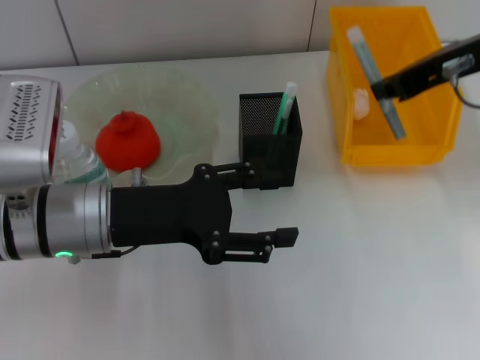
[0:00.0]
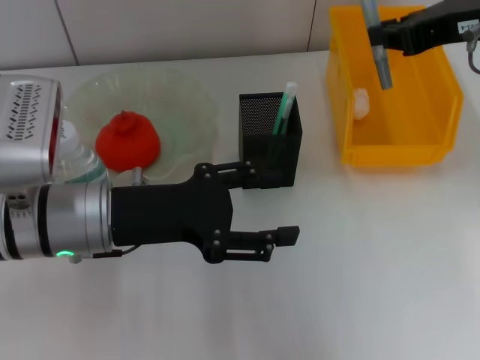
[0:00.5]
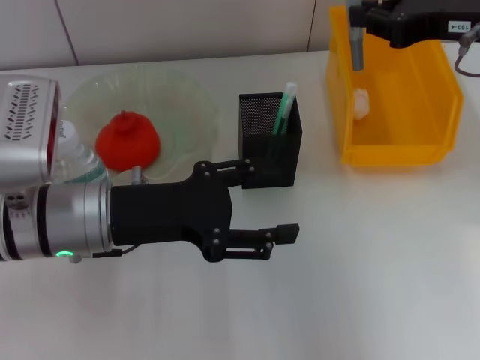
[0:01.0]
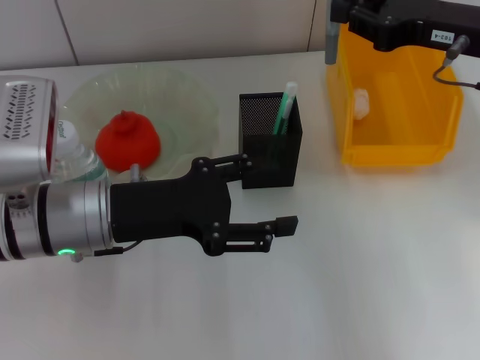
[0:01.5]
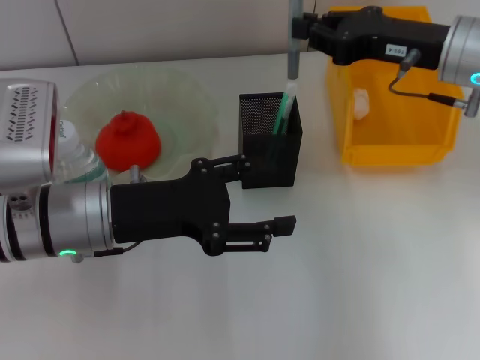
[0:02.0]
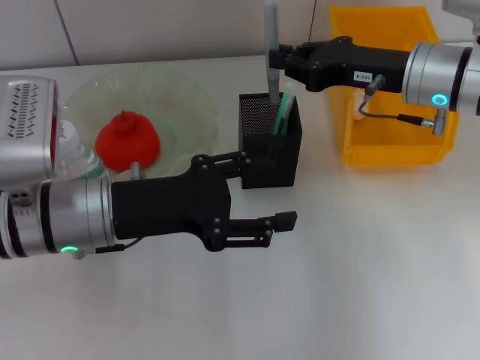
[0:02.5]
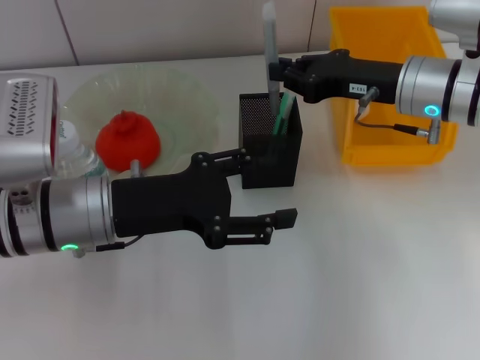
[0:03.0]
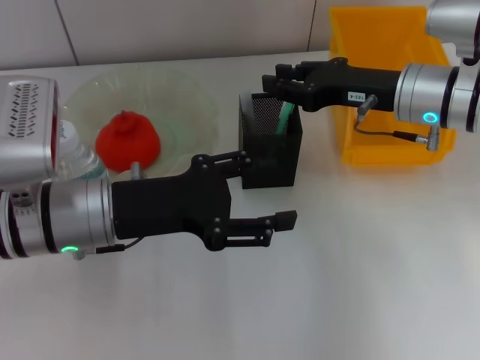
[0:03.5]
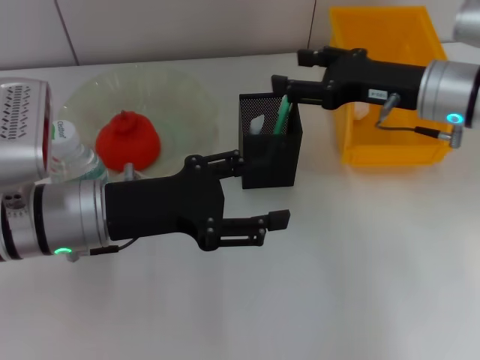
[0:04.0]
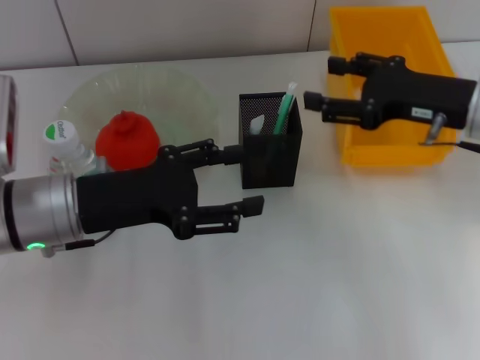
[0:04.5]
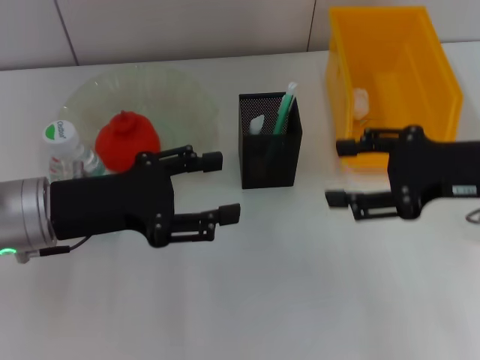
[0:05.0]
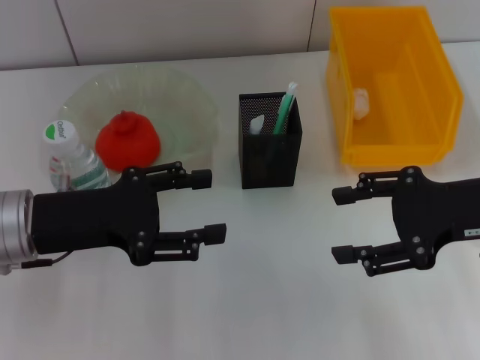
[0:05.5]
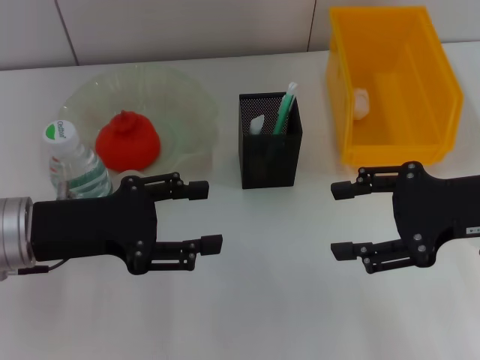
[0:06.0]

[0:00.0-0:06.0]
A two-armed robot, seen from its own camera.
Step, 0:00.0 to 0:03.5: Place the gray glue into the pen holder with the right hand.
0:00.0 to 0:02.0: The right gripper moves downward, some 10 cm.
0:02.0 to 0:04.0: The right gripper opens its fingers.
0:04.0 to 0:06.0: The right gripper shifts about 10 cm backward. Meanwhile the left gripper heads to the left, covering some 5 cm.

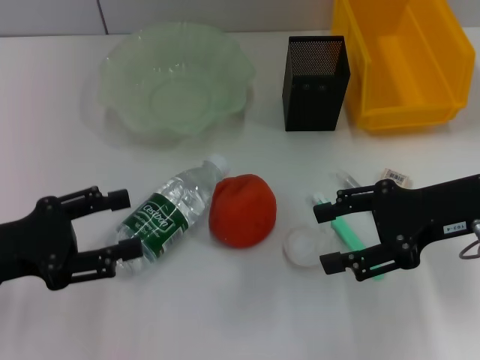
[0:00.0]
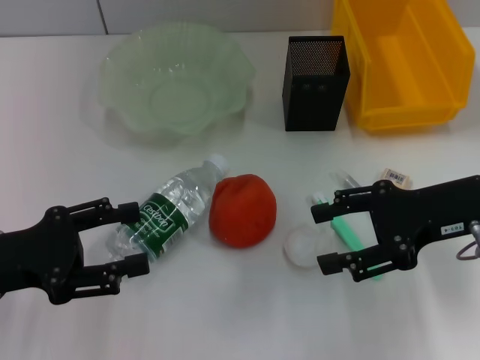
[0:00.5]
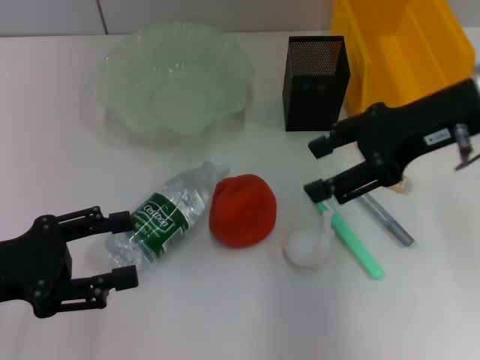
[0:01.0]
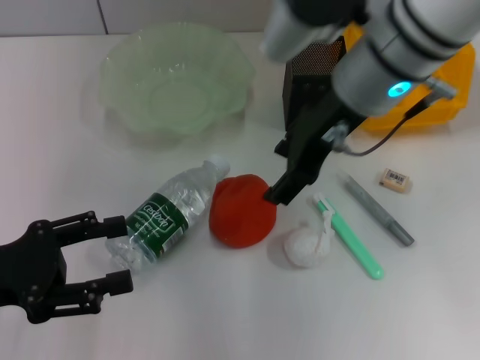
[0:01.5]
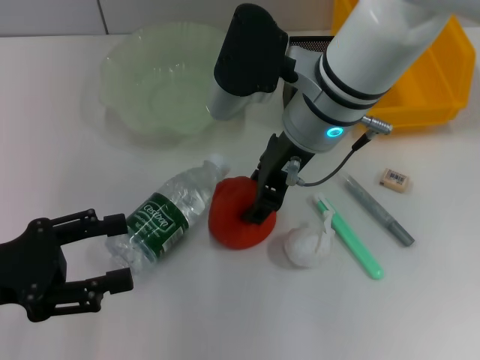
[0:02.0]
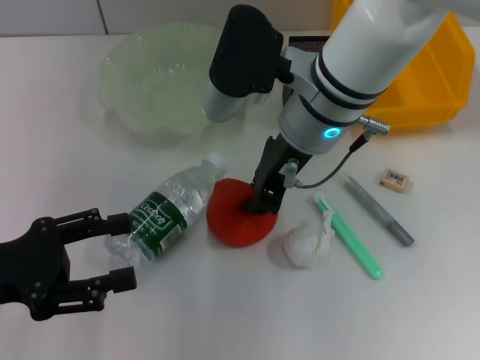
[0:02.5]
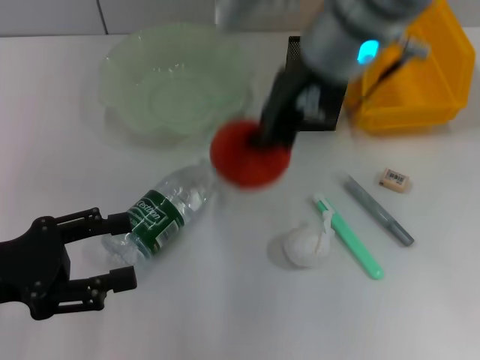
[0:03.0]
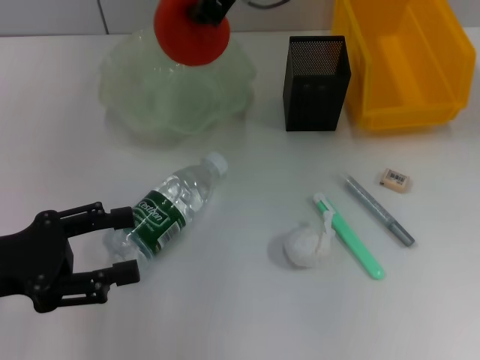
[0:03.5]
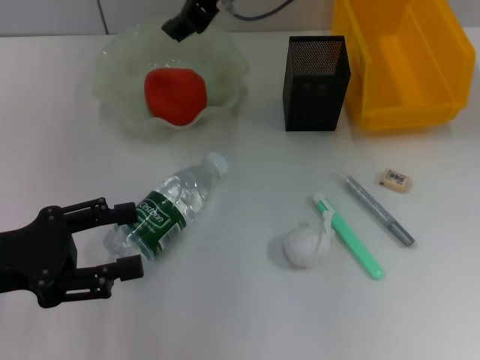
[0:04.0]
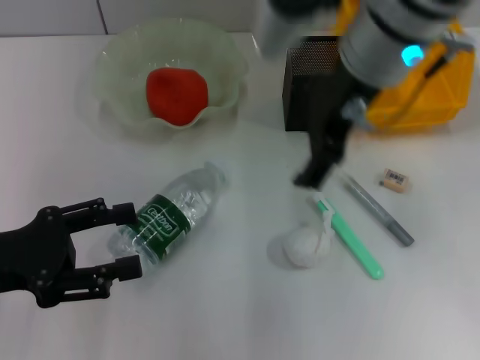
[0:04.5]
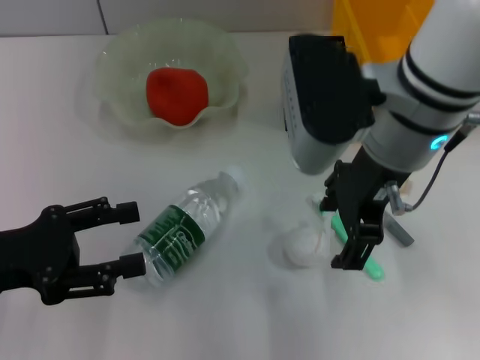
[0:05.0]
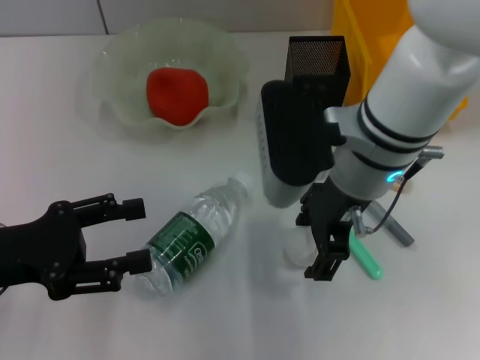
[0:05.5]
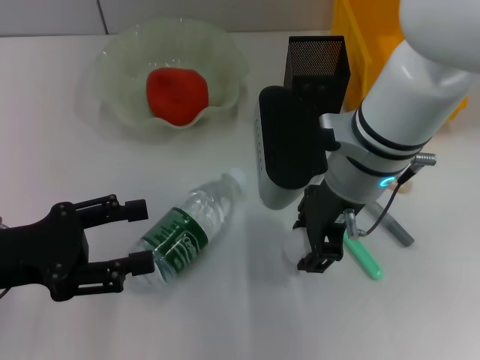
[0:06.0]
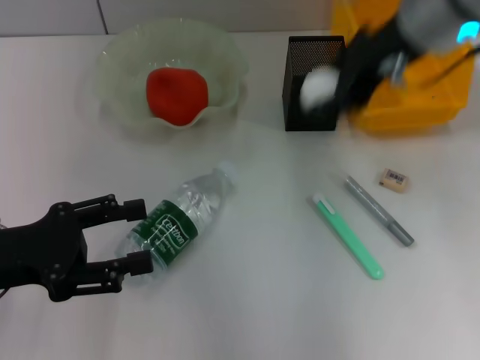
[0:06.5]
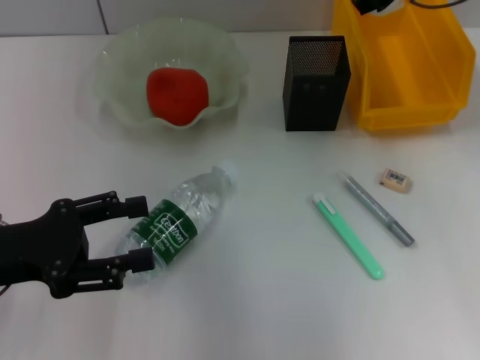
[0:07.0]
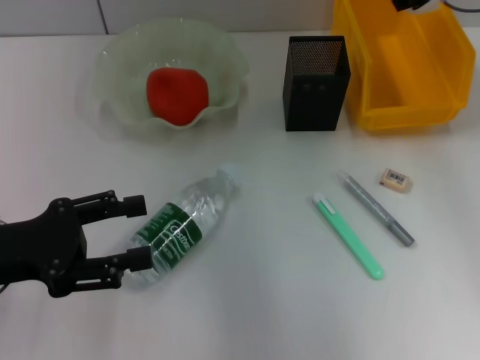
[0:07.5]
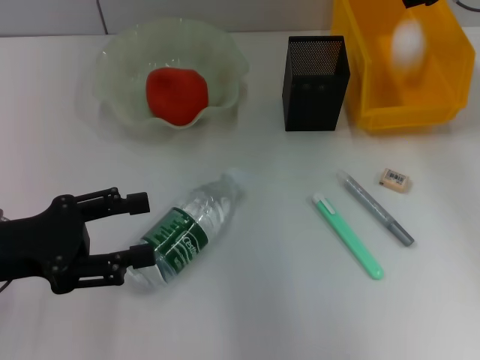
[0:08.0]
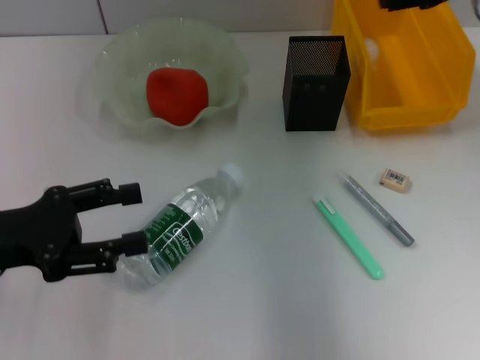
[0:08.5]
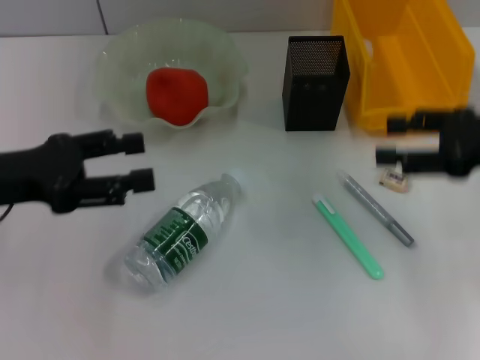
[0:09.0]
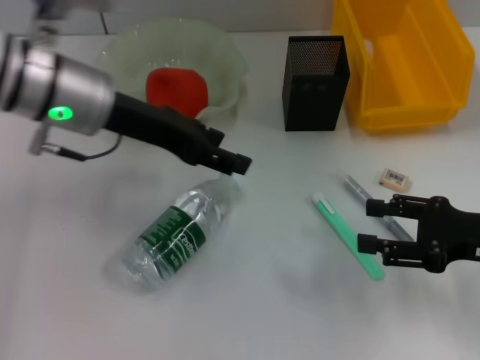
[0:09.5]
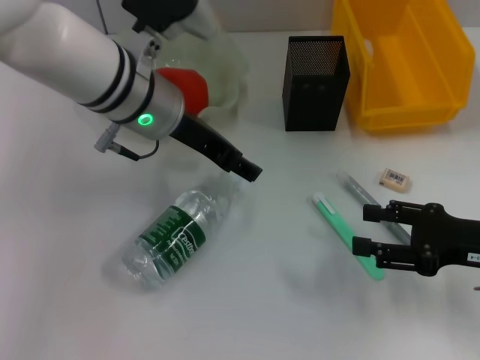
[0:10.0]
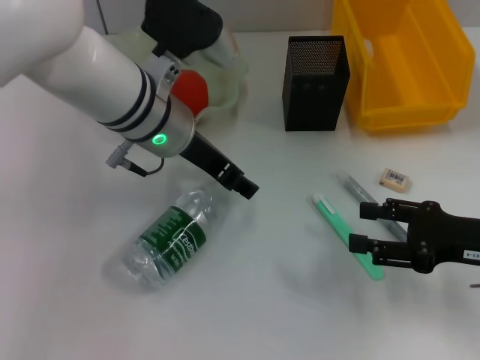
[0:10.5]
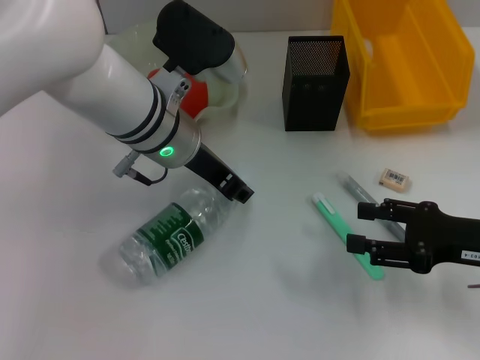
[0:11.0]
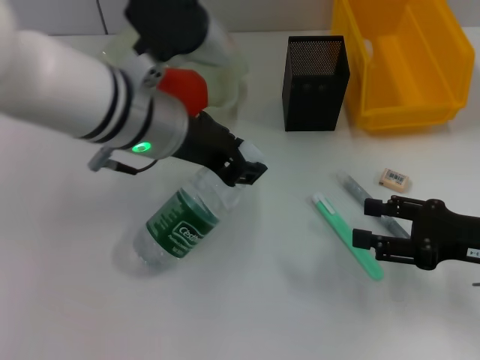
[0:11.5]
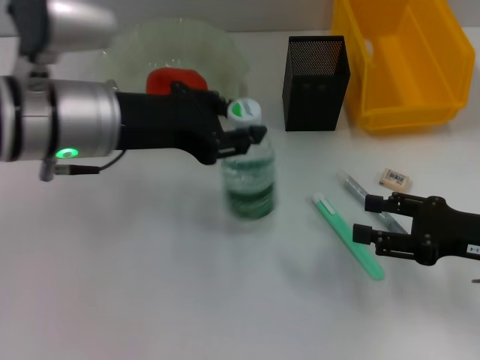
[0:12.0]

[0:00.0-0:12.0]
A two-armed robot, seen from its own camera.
Step, 0:00.0 to 0:02.5: Grab the orange with the right hand.
Step, 0:03.0 to 0:04.0: Place the orange into the fruit bowl with the right hand.
Step, 0:04.5 to 0:06.0: Grab the paper ball with the right hand.
Step, 0:06.5 to 0:08.0: Place the paper ball into the trash can with the right hand.
Step, 0:08.5 to 0:10.5: Grab the water bottle with the left hand.
0:00.0 to 0:02.0: The right gripper moves to the left, about 20 cm.
0:02.0 to 0:04.0: The right gripper shifts some 10 cm upward and forward, and closes.
0:04.0 to 0:06.0: The right gripper moves downward, backward and to the right, roughly 15 cm, and opens up.
0:06.0 to 0:08.0: The right gripper heads to the right, forward and upward, covering some 20 cm.
0:08.0 to 0:10.0: The left gripper is displaced to the right and forward by some 25 cm, while the right gripper is displaced backward and downward by some 25 cm.
0:10.0 to 0:12.0: The left gripper shifts some 10 cm backward and to the left, and closes.

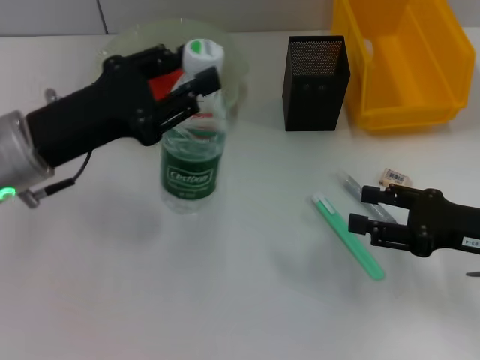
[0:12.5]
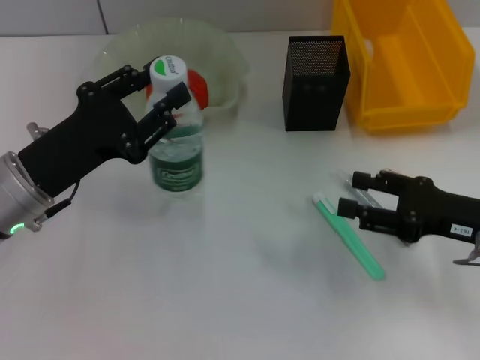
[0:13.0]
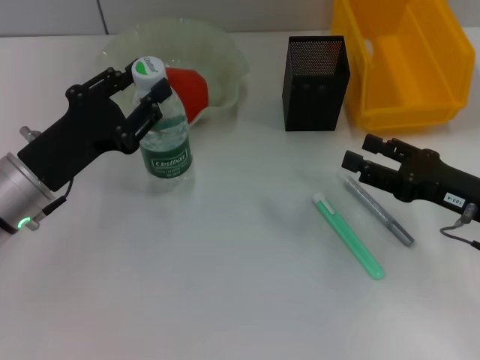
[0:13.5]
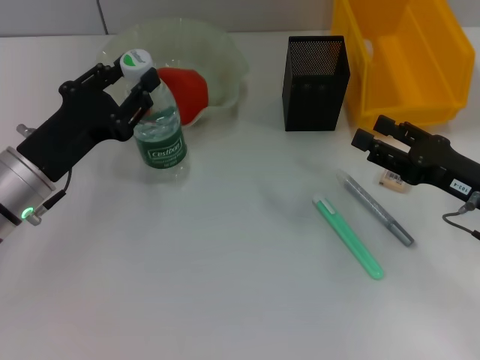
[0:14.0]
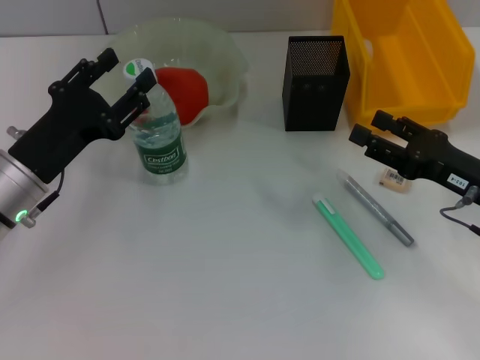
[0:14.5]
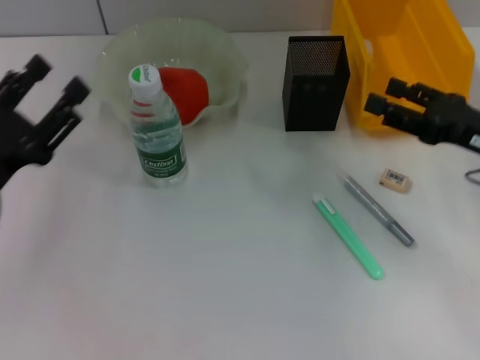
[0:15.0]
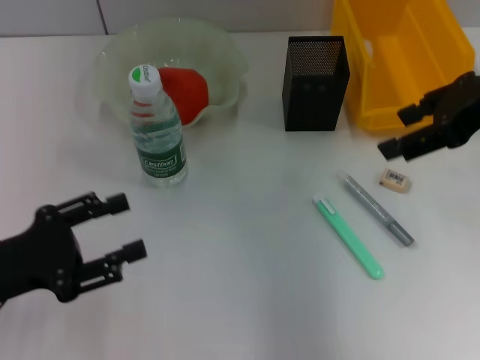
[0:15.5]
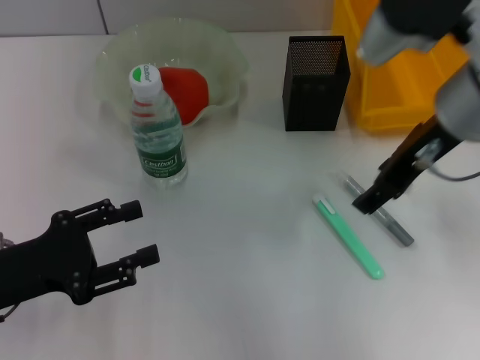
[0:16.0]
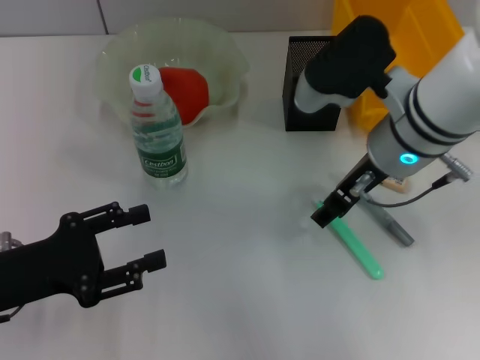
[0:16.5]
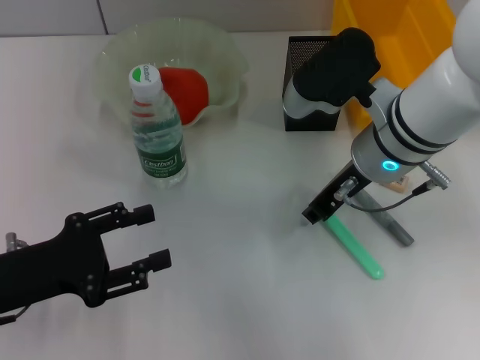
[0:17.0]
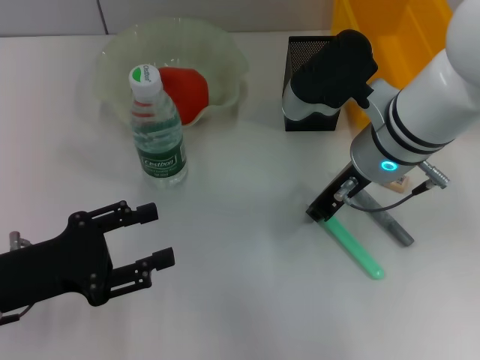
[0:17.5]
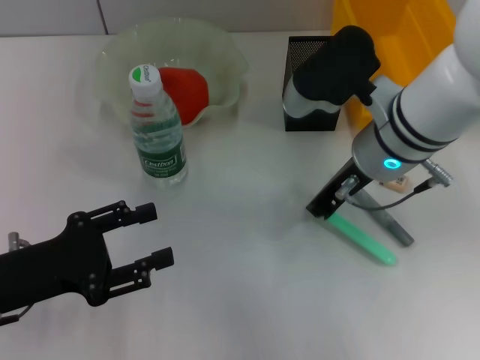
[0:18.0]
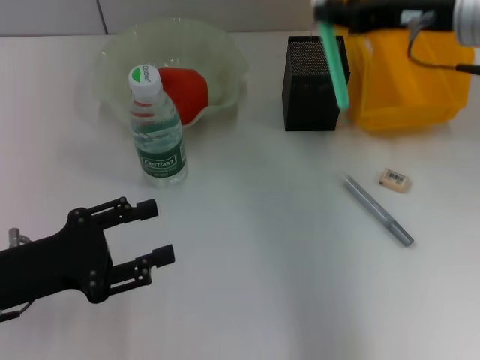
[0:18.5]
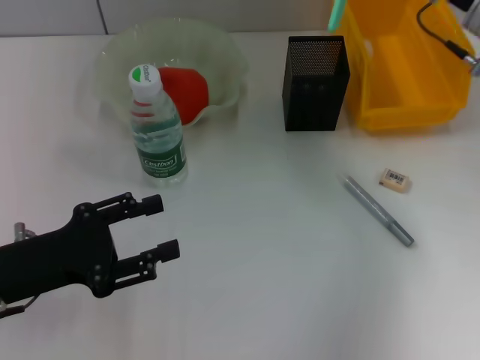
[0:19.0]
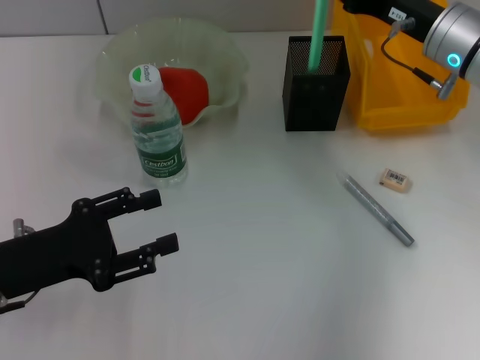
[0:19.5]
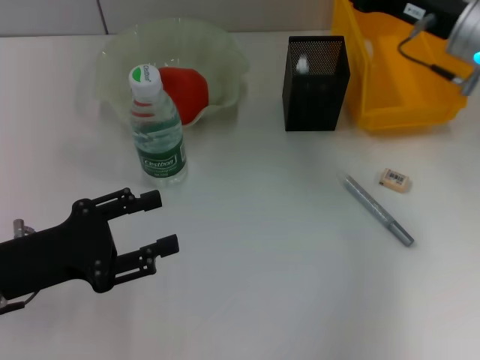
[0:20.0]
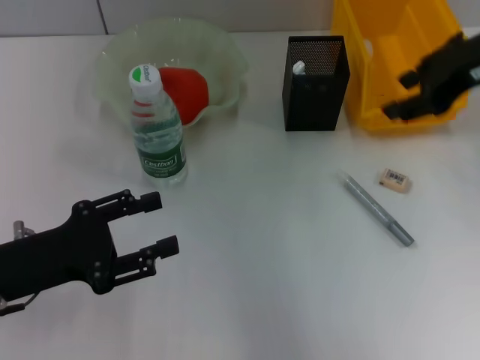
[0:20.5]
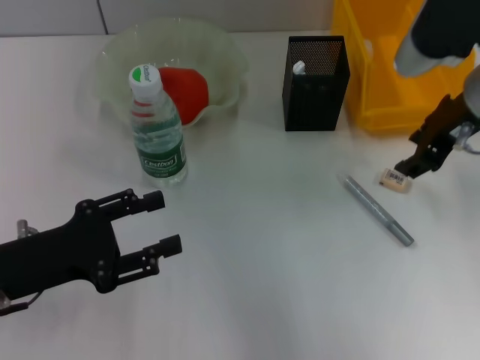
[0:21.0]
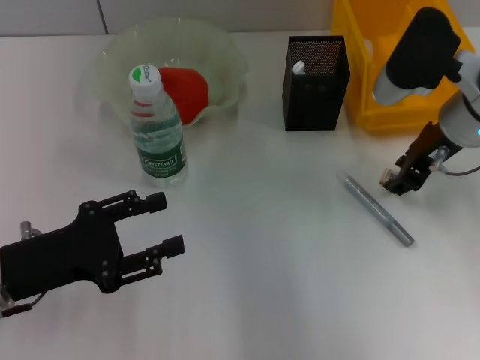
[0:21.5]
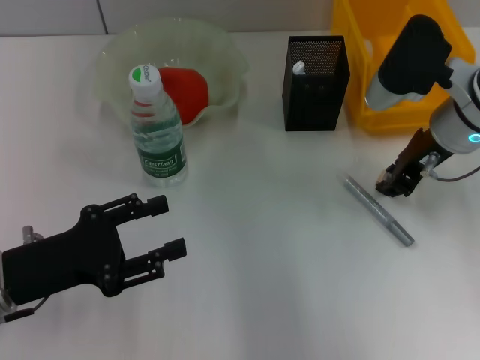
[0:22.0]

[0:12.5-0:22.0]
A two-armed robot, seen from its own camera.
Step, 0:12.5 to 0:14.5: Place the water bottle on the table with the left hand.
Step, 0:15.0 to 0:17.5: Grab the blue utility knife with the right hand.
Step, 0:18.0 to 0:20.0: Place the blue utility knife into the pen holder with the right hand.
Step, 0:20.5 to 0:21.5: Grab the eraser with the right hand.
0:12.5 to 0:14.5: The left gripper travels downward by approximately 5 cm.
0:14.5 to 0:16.5: The right gripper moves to the left and upward, approximately 20 cm, while the left gripper goes roughly 10 cm backward, and opens.
0:16.5 to 0:18.0: The right gripper closes its fingers.
0:18.0 to 0:20.0: The right gripper shifts about 10 cm to the right and forward, and opens its fingers.
0:20.0 to 0:22.0: The right gripper goes upward and returns, roughly 10 cm each way.
